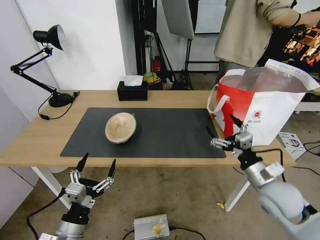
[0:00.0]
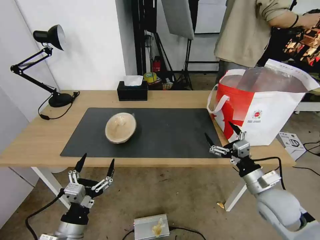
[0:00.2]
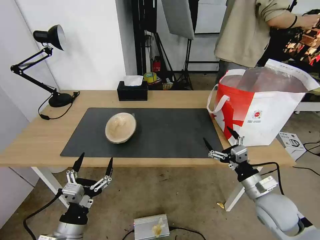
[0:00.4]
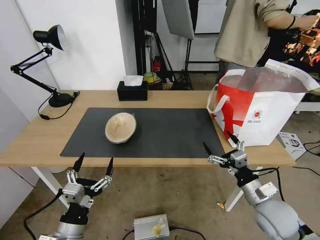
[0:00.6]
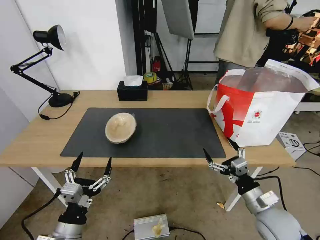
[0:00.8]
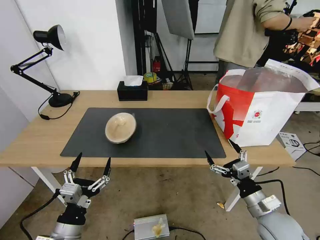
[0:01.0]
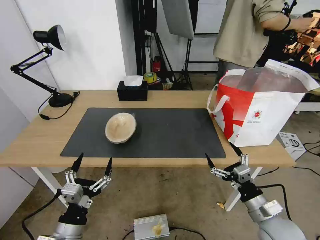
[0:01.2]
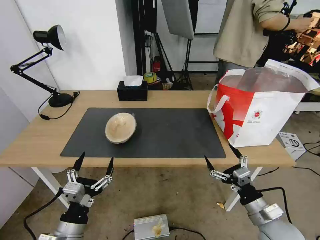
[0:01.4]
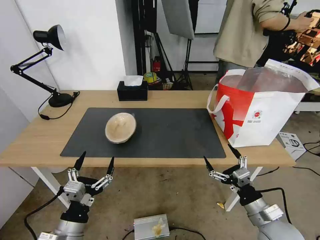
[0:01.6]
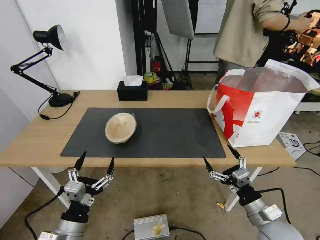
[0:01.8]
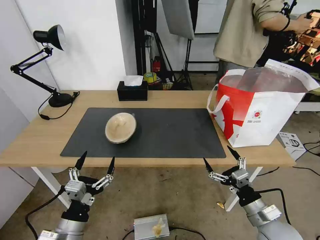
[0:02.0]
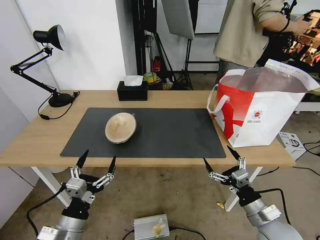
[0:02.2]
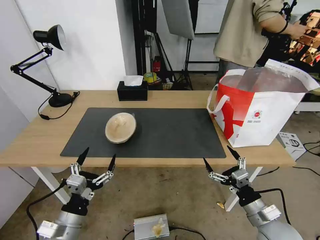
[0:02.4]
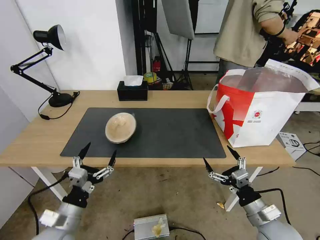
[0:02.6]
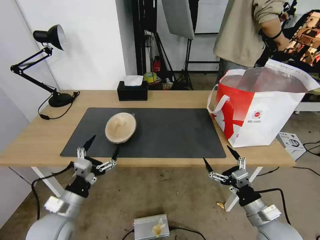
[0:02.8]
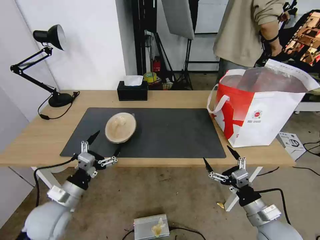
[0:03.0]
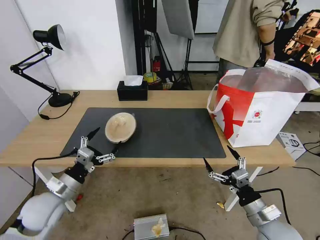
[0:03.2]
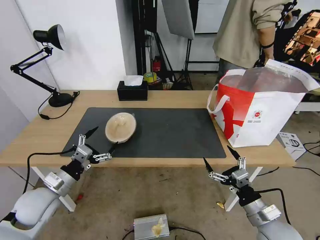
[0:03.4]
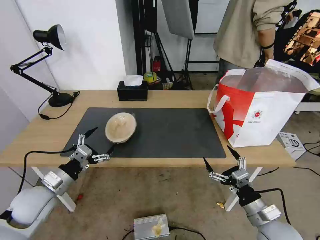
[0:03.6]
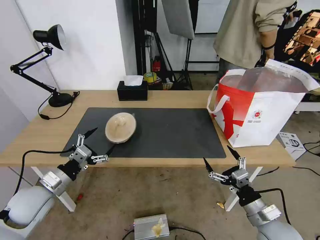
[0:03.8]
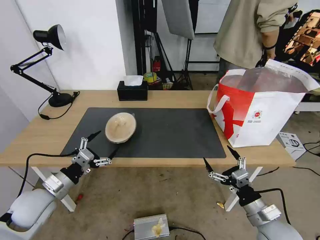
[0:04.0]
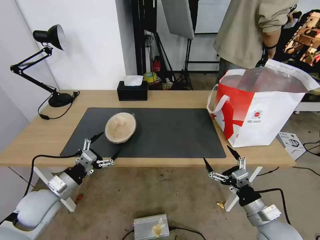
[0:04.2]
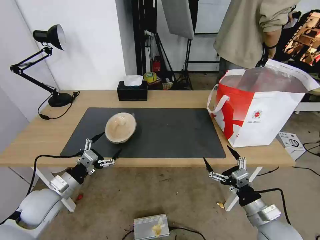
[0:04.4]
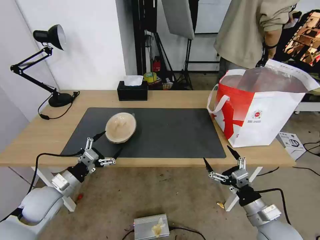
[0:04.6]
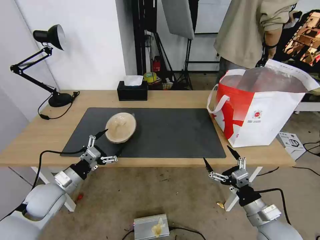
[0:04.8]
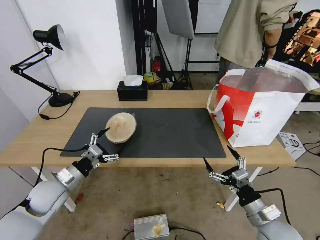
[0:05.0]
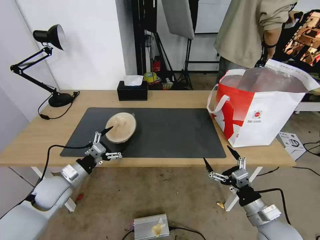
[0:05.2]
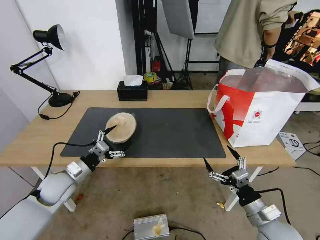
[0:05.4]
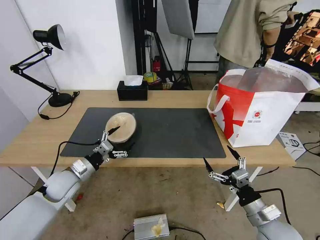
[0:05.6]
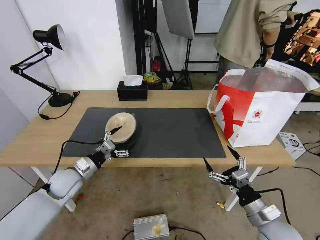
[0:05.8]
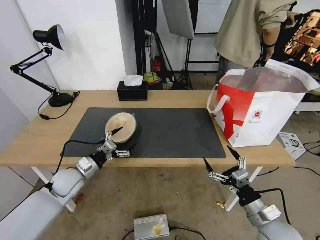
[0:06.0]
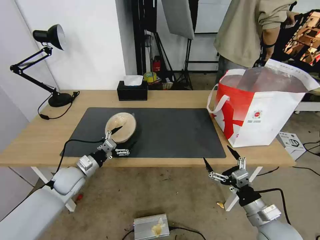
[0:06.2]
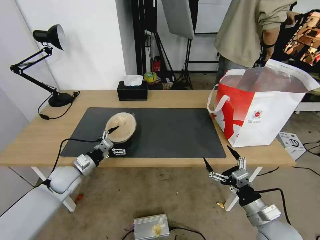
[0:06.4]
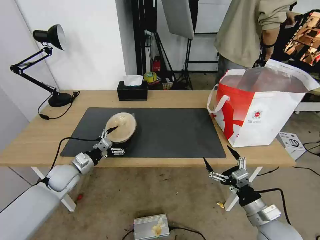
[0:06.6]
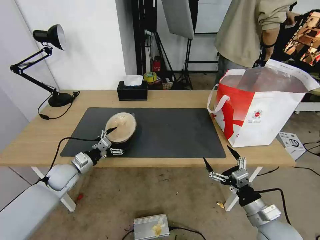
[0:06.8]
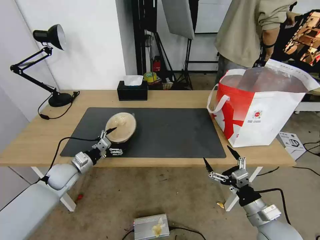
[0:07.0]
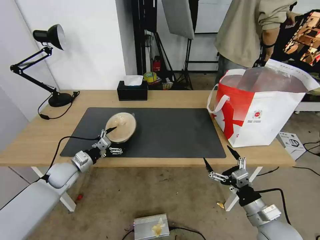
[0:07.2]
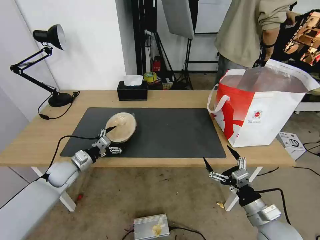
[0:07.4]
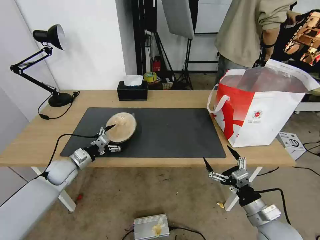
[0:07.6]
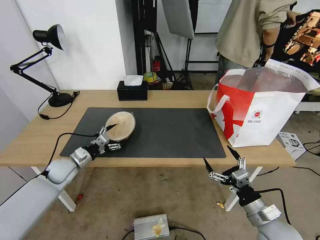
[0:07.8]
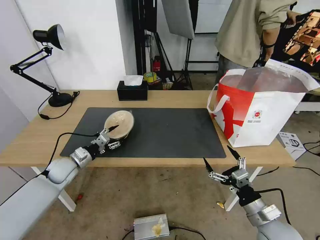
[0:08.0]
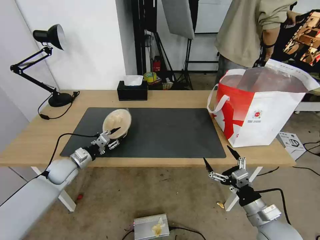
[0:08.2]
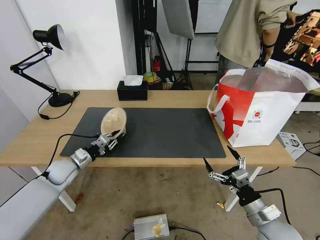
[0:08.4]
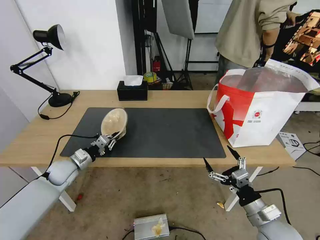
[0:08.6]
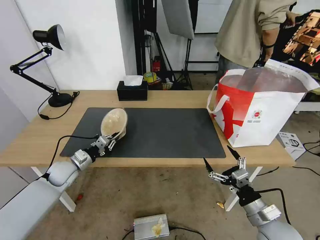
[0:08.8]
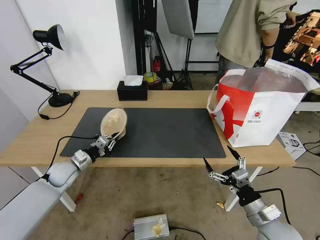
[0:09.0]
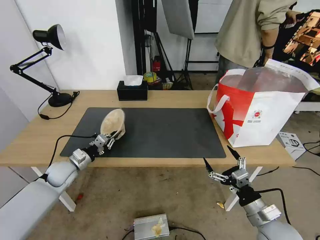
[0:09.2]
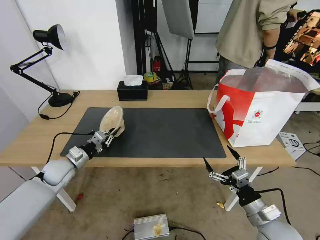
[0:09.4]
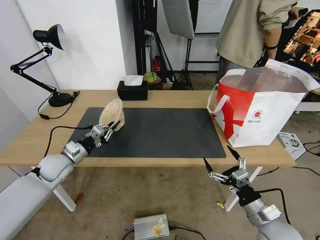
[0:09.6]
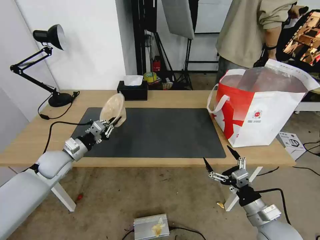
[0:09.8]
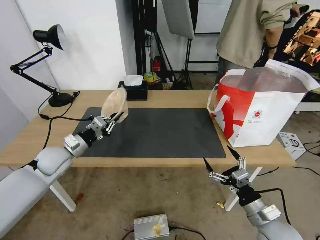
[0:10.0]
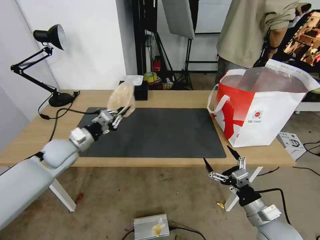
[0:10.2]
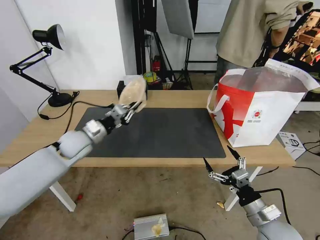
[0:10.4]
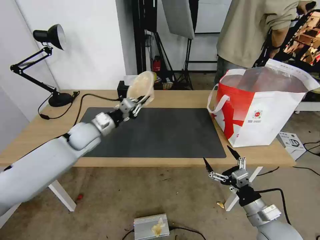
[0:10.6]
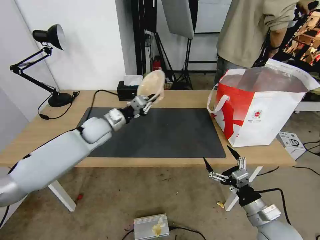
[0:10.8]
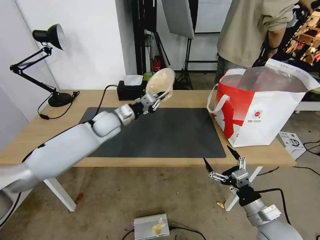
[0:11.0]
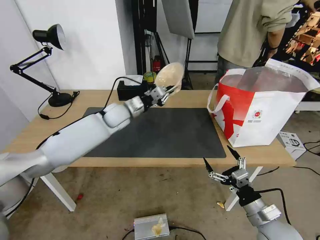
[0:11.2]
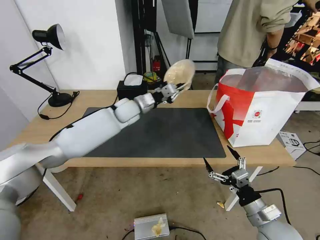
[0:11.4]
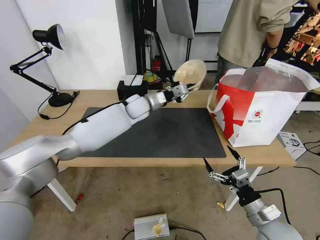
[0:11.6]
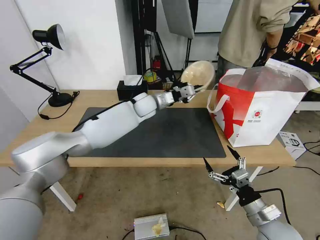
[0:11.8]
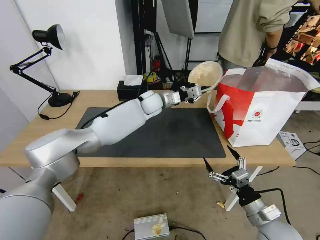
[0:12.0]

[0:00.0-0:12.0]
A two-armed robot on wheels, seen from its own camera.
Task of the whole recording: Pick up the trash from the table and place it into the takeout bag.
0:00.0 to 0:01.6: The right gripper shifts some 10 cm backward and downward.
0:01.6 to 0:03.0: The left gripper travels forward and to the left by roughly 10 cm.
0:03.0 to 0:04.4: The left gripper changes place by approximately 5 cm.
0:04.4 to 0:06.0: The left gripper moves forward, roughly 10 cm.
0:06.0 to 0:07.6: The left gripper changes place by roughly 5 cm.
0:07.6 to 0:09.0: The left gripper closes up.
0:09.0 to 0:10.4: The left gripper shifts about 15 cm upward and to the right.
0:10.4 to 0:12.0: The left gripper shifts approximately 30 cm to the right and forward.

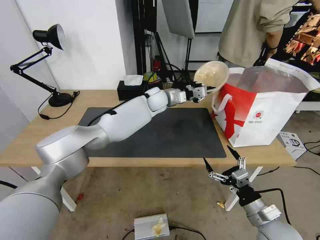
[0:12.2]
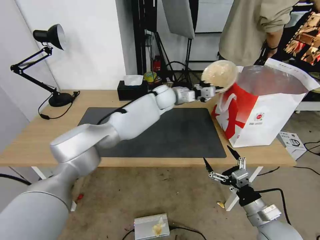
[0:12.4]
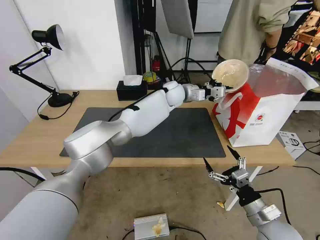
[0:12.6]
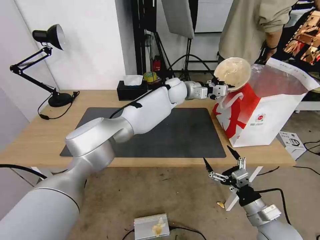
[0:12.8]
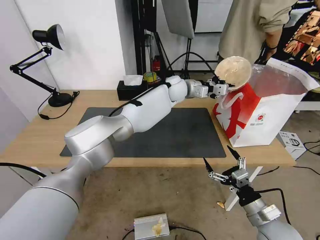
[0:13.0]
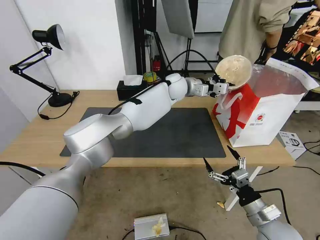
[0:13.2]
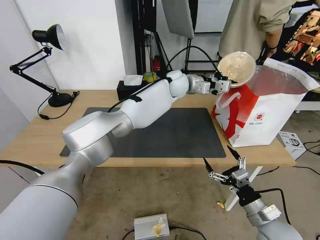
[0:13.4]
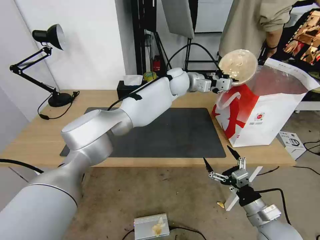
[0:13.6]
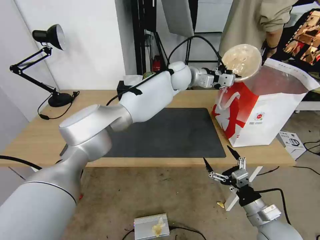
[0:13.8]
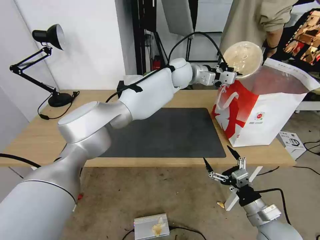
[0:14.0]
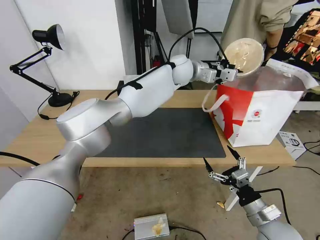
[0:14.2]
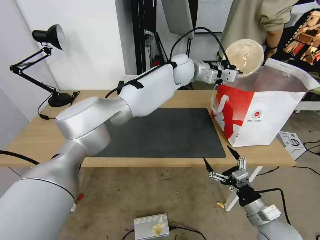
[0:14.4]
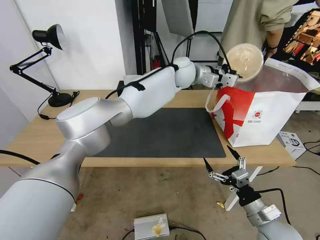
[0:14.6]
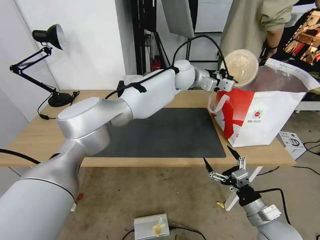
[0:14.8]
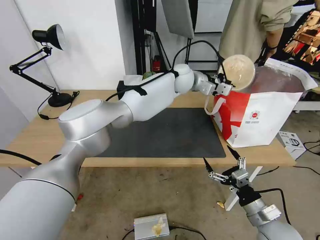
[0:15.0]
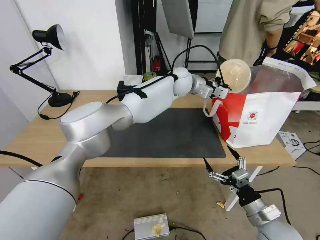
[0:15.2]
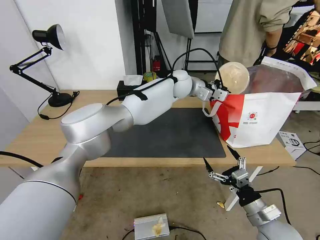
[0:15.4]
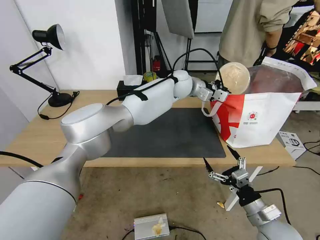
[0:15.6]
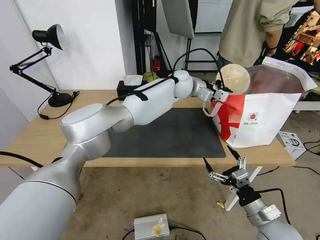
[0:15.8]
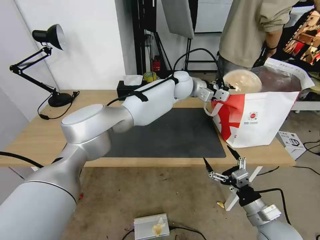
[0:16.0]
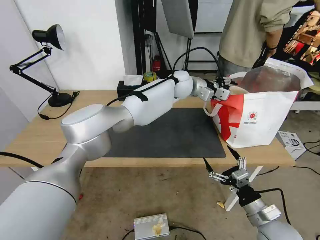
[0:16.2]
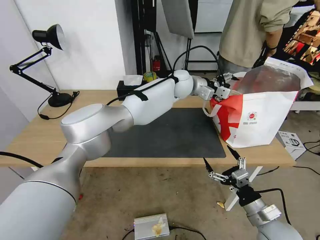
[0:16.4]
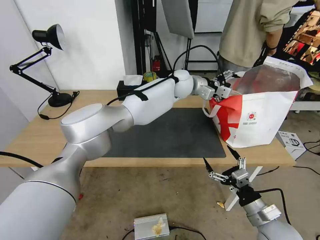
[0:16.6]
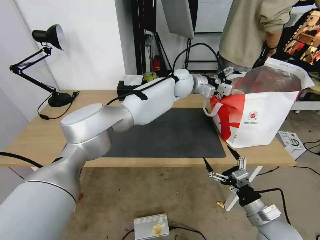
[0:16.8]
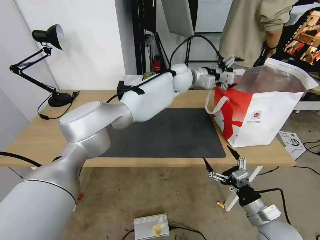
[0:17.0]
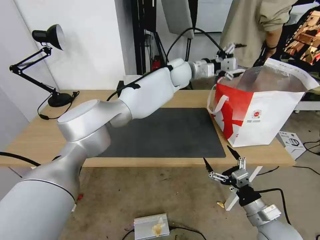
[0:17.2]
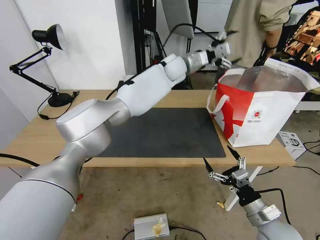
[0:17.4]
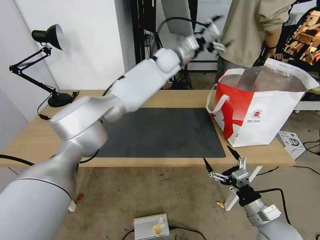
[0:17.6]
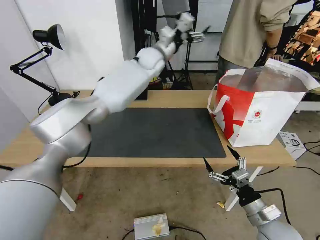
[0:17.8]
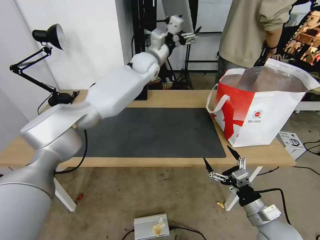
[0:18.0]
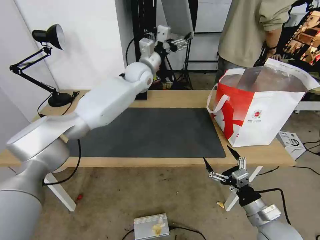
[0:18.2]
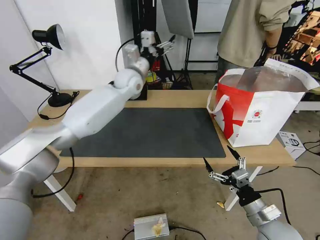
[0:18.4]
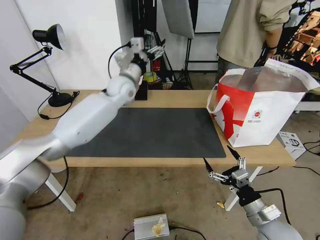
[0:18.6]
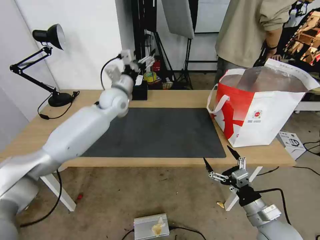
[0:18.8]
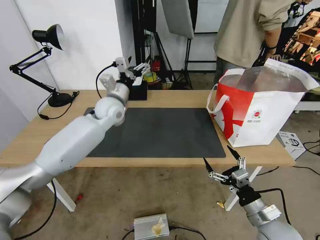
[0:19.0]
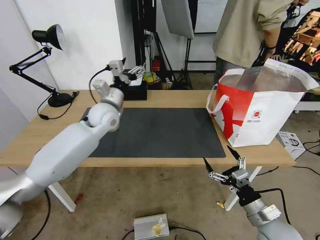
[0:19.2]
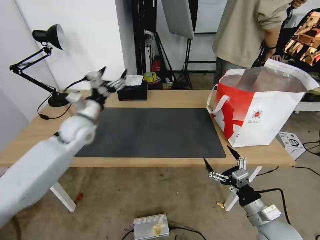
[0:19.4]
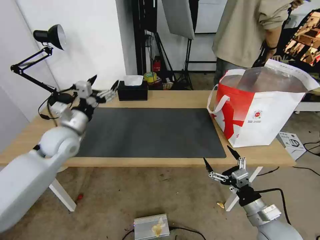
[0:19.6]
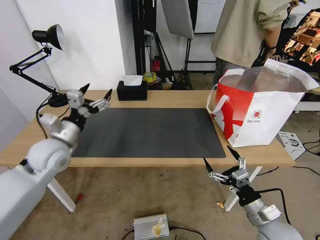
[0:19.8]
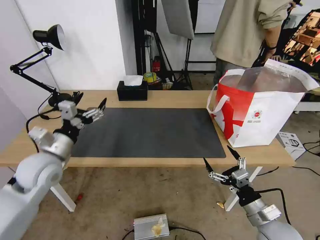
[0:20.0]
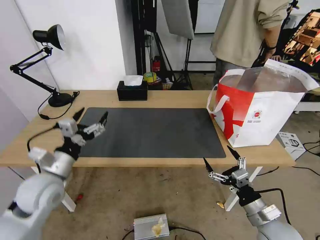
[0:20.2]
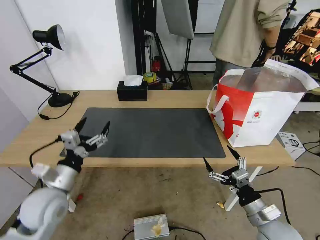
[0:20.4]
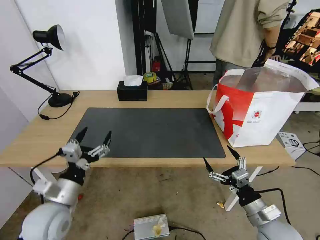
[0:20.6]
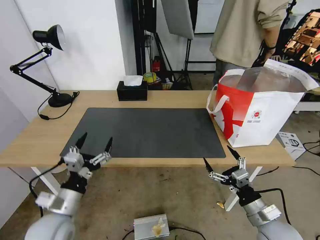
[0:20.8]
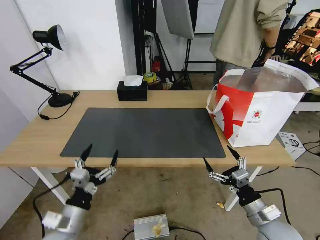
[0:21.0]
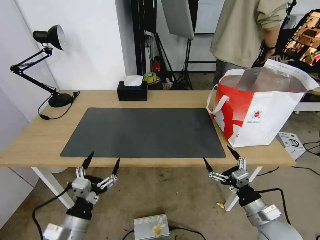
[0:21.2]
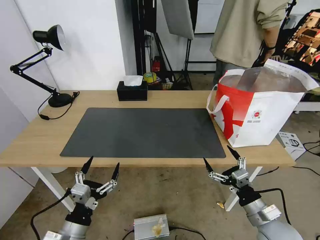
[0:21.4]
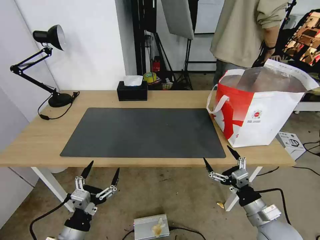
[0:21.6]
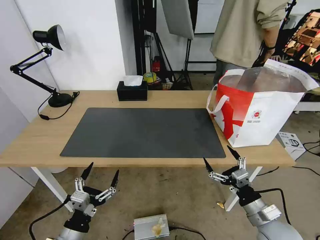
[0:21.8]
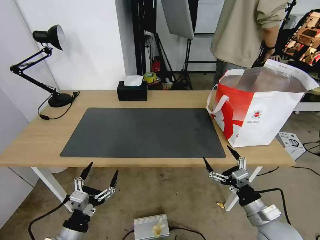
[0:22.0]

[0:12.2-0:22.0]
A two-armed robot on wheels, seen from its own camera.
Task of the whole recording: Pick up the trash from the table and place it into the takeout bag.
0:12.2 to 0:13.6: The left gripper travels to the right and upward by some 10 cm.
0:13.6 to 0:15.0: There are only small adjustments of the grippers.
0:15.0 to 0:16.4: The left gripper opens up.
0:16.4 to 0:17.8: The left gripper travels to the left and upward by approximately 15 cm.
0:17.8 to 0:19.2: The left gripper travels backward, to the left and downward by some 25 cm.
0:19.2 to 0:20.6: The left gripper heads backward, covering some 30 cm.
0:20.6 to 0:22.0: The left gripper heads backward and downward, covering approximately 15 cm.
